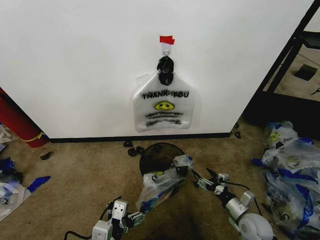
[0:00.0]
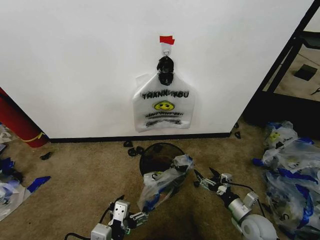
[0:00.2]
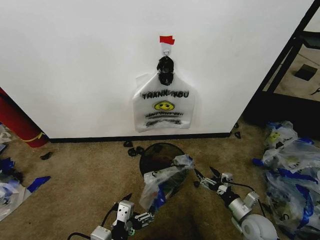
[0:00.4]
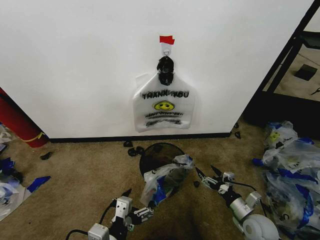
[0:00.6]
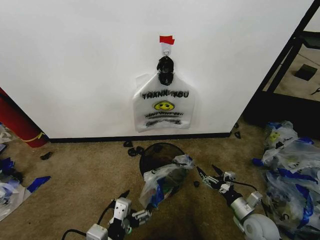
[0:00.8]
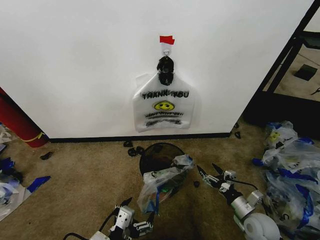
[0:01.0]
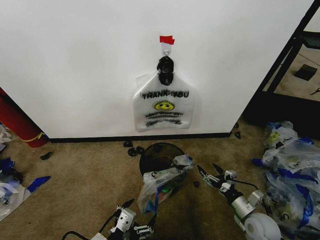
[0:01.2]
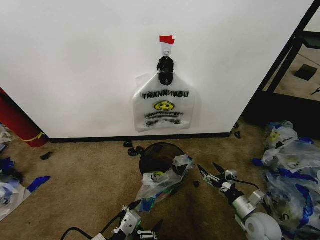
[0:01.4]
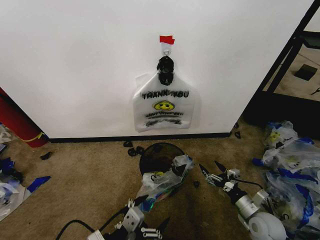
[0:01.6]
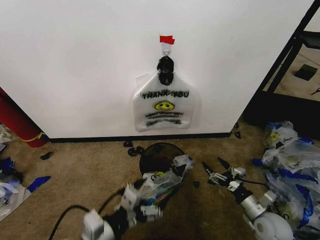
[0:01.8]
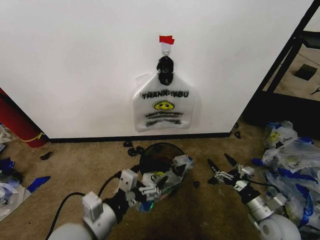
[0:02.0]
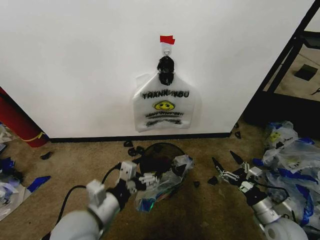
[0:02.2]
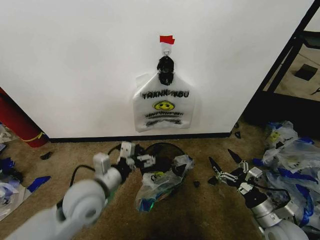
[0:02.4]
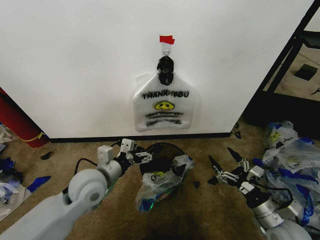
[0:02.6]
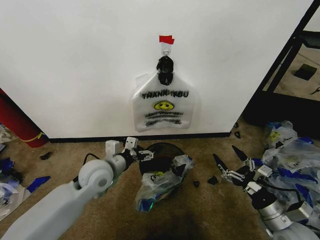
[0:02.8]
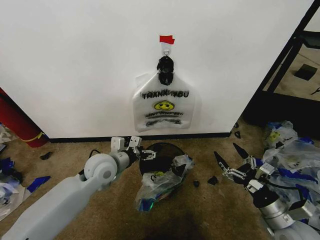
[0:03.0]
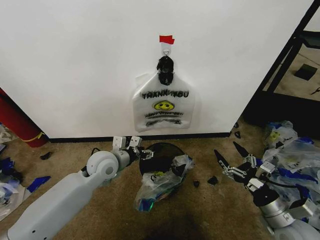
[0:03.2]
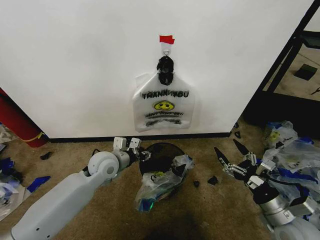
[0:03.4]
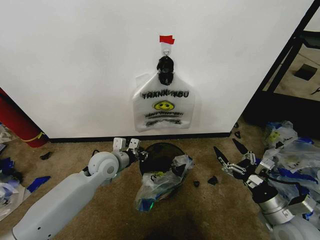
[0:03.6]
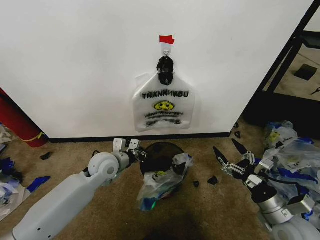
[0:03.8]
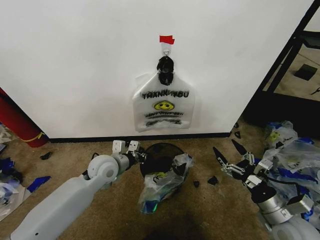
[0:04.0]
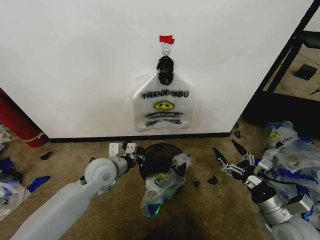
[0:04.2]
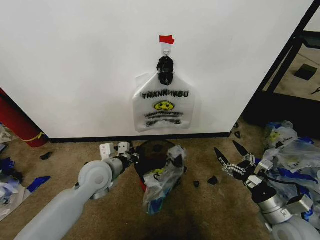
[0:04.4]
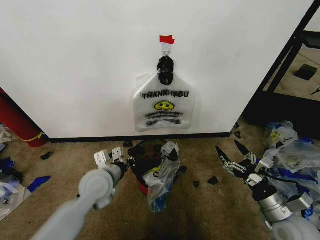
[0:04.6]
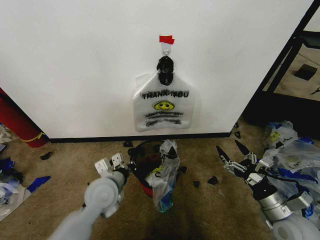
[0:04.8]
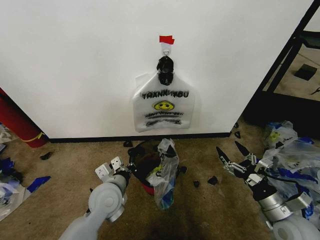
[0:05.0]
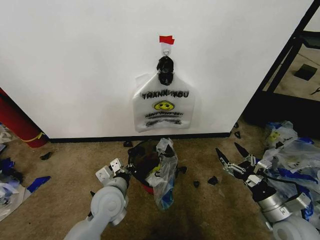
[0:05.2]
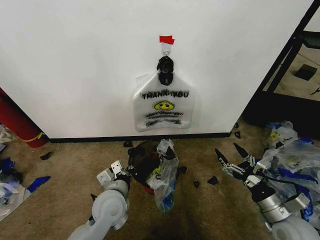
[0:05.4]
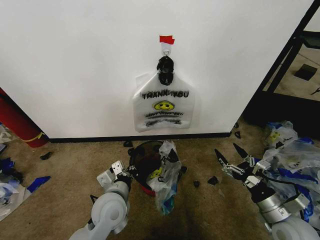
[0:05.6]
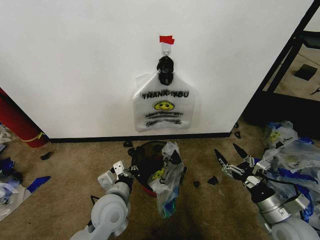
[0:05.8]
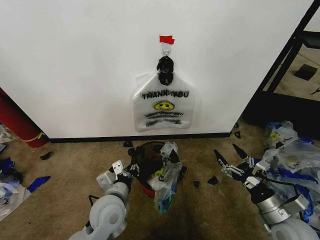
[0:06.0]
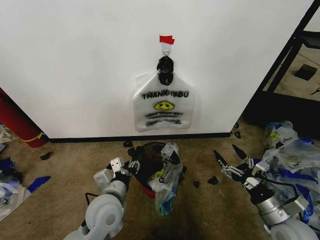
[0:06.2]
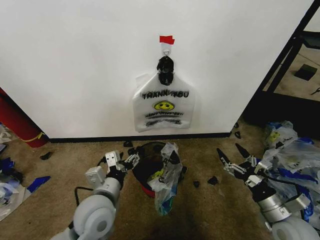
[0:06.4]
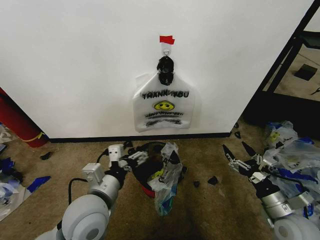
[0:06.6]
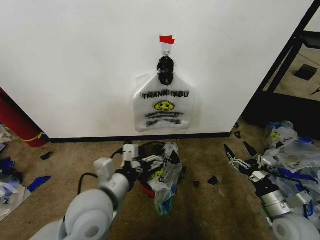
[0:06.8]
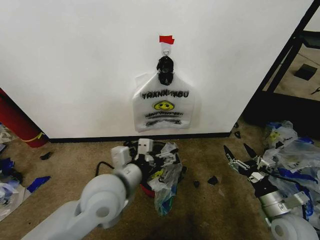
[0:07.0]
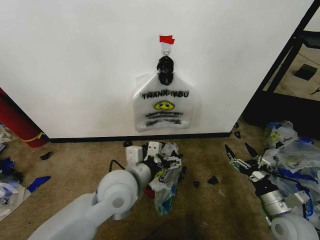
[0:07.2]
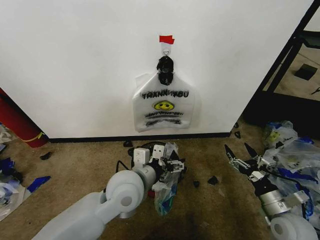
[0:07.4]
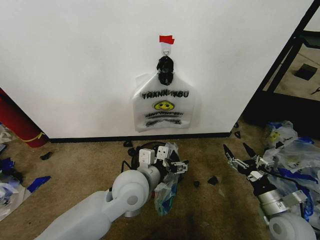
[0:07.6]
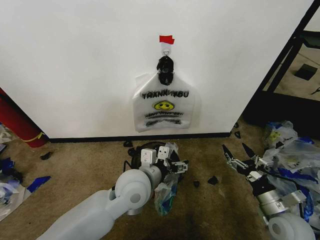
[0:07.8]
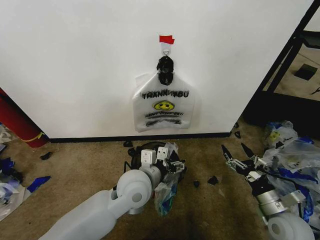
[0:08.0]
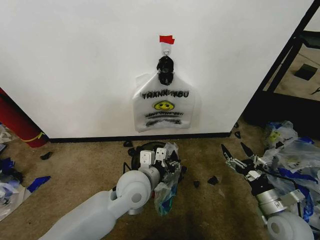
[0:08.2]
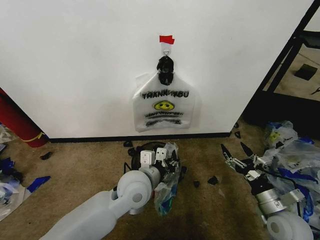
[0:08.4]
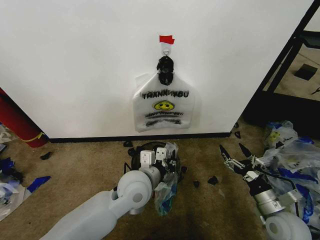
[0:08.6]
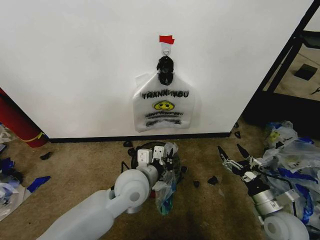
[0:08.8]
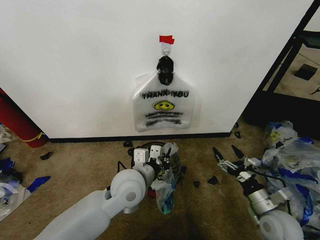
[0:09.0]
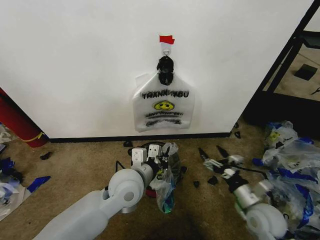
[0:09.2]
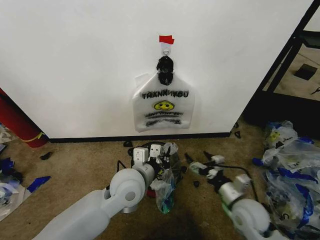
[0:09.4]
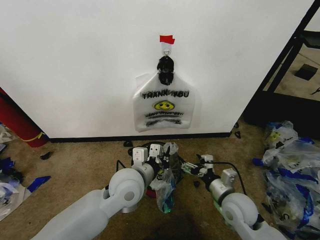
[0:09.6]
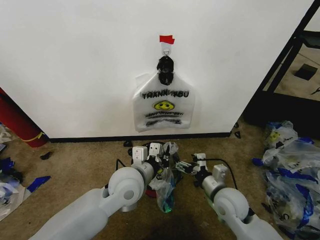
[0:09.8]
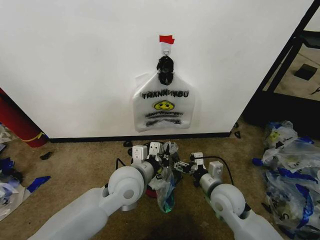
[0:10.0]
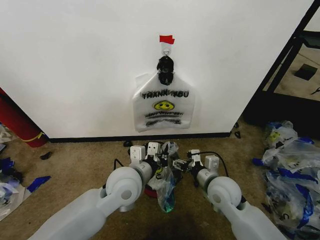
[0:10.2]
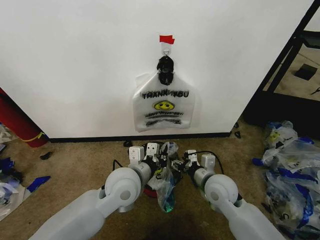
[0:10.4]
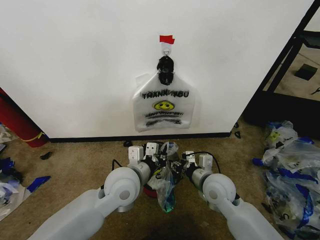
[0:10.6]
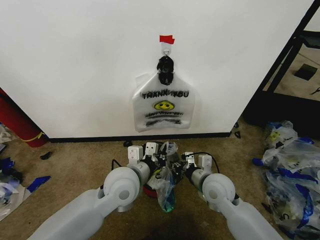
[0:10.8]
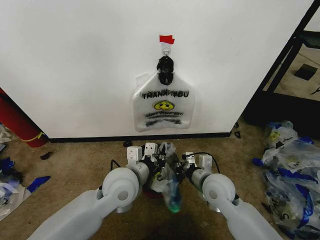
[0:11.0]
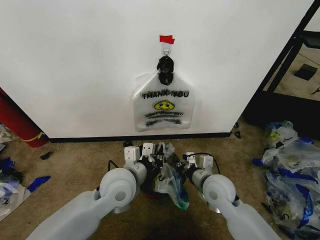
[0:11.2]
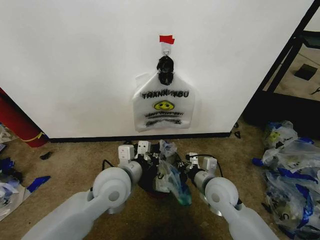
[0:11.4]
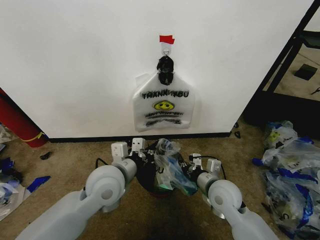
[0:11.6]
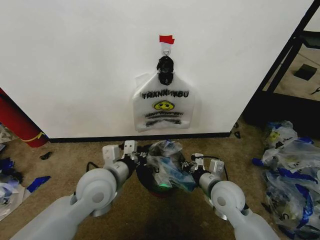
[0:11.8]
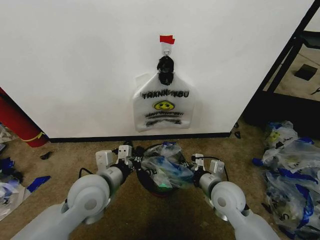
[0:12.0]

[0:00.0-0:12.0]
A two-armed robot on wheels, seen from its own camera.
Task of the whole recording: Pick up the garbage bag from the wall and place it over the trash bin.
0:01.6 to 0:03.0: The left gripper is displaced forward by approximately 25 cm; the right gripper is displaced upward by some 10 cm.
0:03.0 to 0:04.4: The left gripper closes its fingers.
0:04.4 to 0:06.0: The left gripper heads backward, covering approximately 10 cm.
0:06.0 to 0:07.6: The left gripper shifts about 10 cm upward and to the right, and opens its fingers.
0:07.6 to 0:09.0: The left gripper closes.
0:09.0 to 0:10.4: The right gripper heads to the left and forward, covering roughly 20 cm.
0:10.4 to 0:12.0: The left gripper goes roughly 10 cm to the left, while the right gripper closes its fingers.

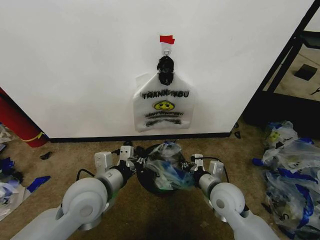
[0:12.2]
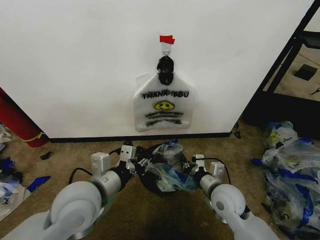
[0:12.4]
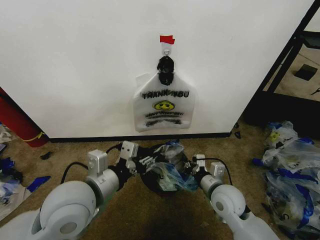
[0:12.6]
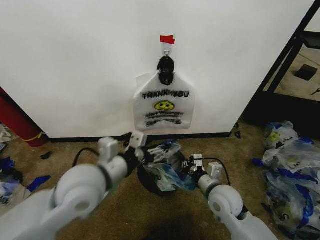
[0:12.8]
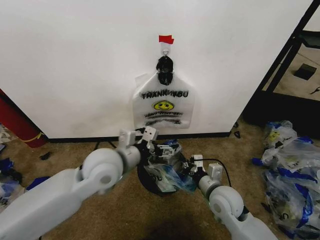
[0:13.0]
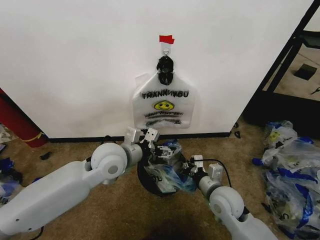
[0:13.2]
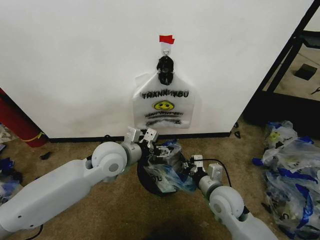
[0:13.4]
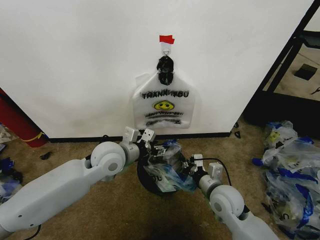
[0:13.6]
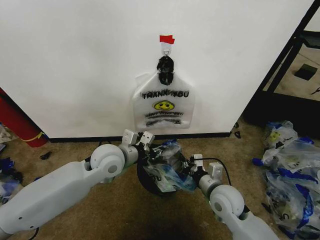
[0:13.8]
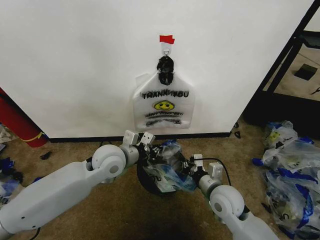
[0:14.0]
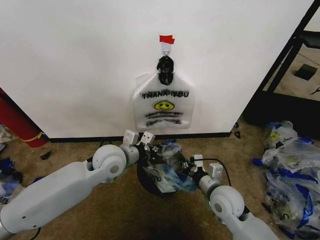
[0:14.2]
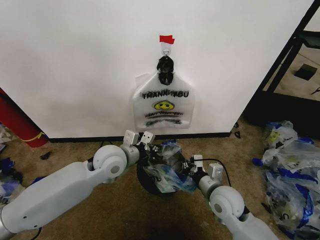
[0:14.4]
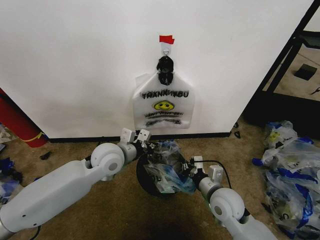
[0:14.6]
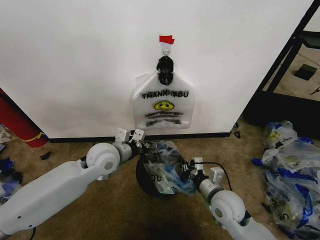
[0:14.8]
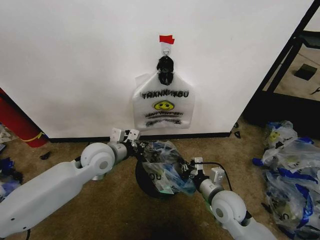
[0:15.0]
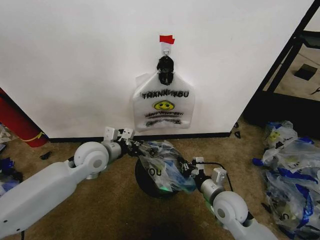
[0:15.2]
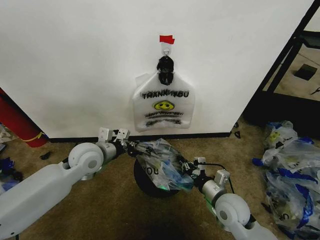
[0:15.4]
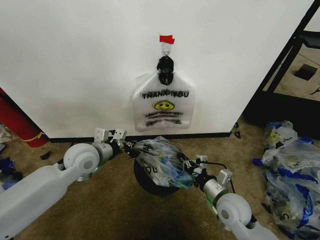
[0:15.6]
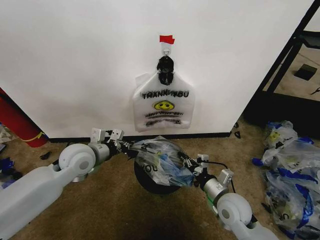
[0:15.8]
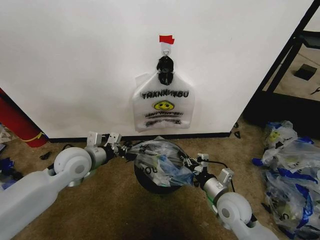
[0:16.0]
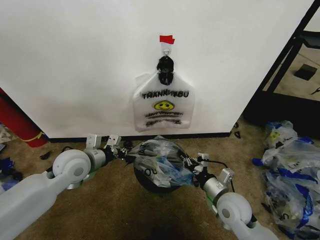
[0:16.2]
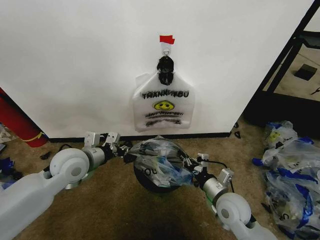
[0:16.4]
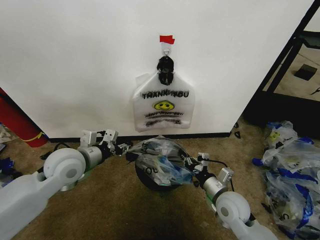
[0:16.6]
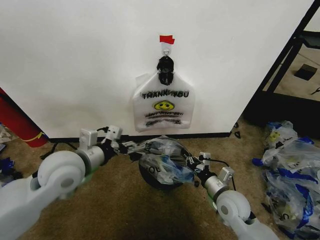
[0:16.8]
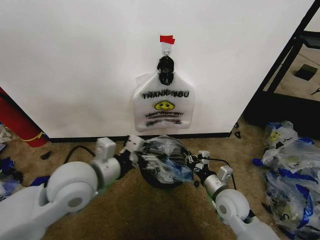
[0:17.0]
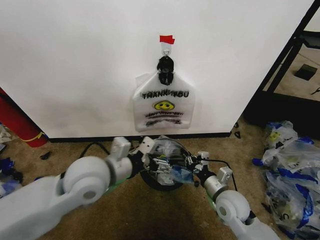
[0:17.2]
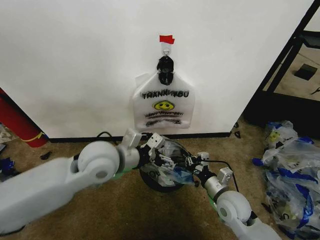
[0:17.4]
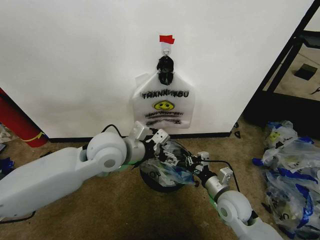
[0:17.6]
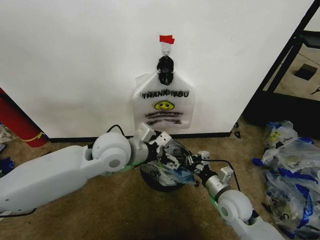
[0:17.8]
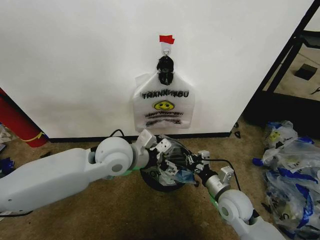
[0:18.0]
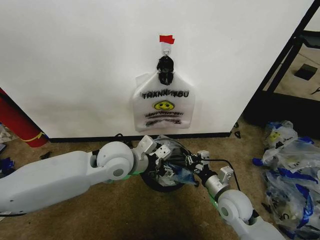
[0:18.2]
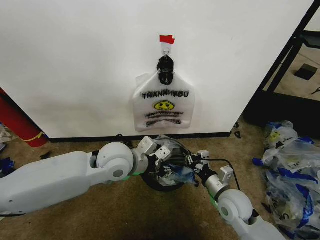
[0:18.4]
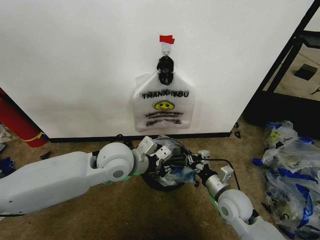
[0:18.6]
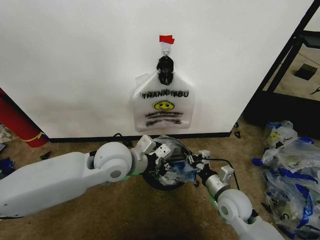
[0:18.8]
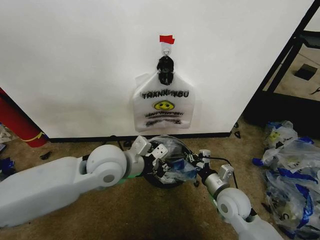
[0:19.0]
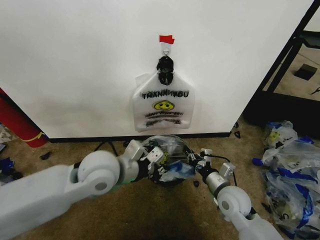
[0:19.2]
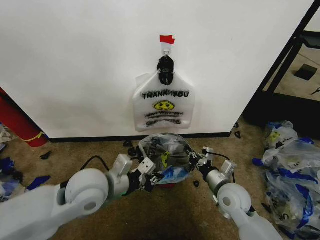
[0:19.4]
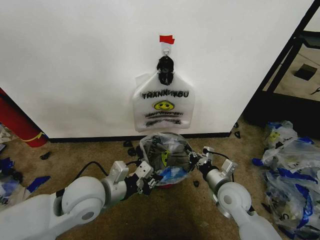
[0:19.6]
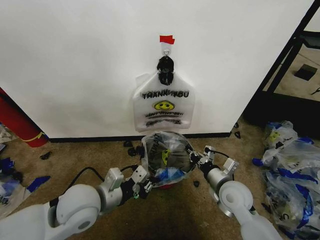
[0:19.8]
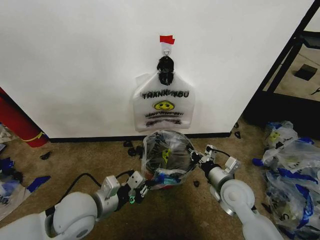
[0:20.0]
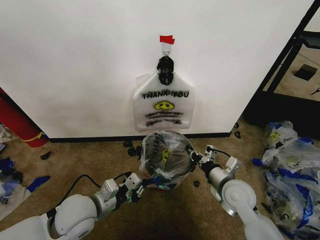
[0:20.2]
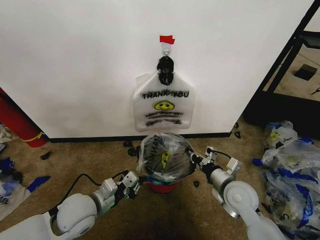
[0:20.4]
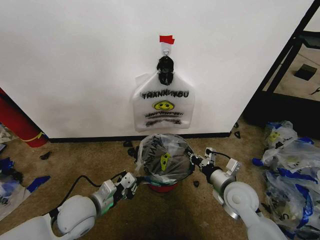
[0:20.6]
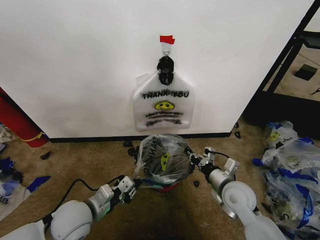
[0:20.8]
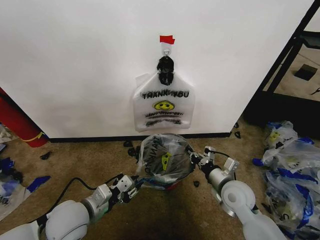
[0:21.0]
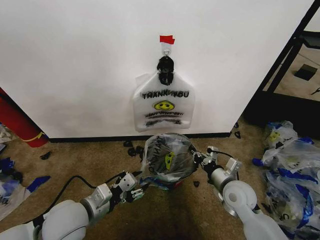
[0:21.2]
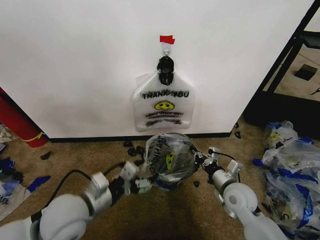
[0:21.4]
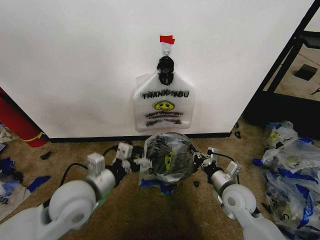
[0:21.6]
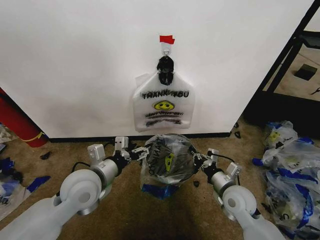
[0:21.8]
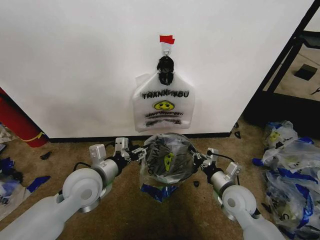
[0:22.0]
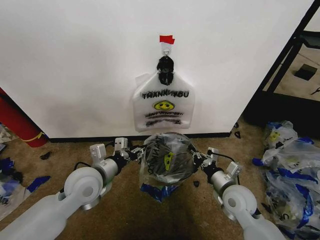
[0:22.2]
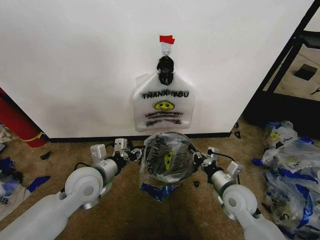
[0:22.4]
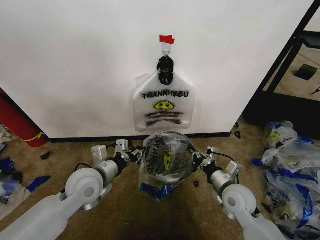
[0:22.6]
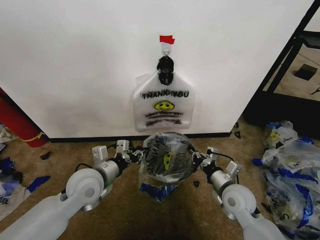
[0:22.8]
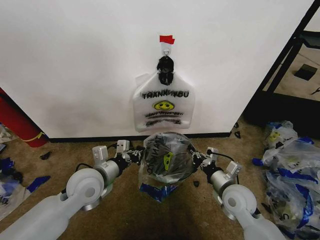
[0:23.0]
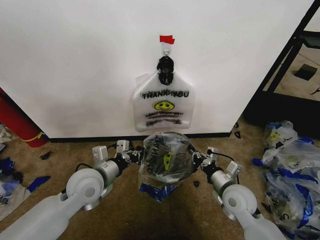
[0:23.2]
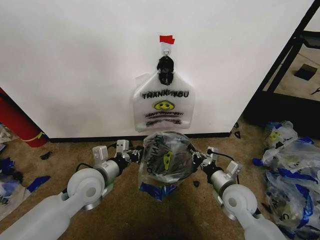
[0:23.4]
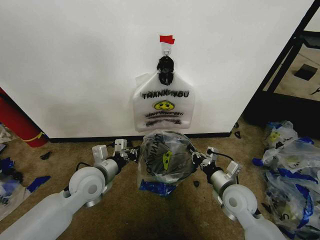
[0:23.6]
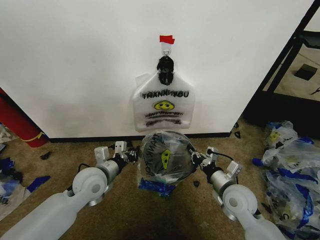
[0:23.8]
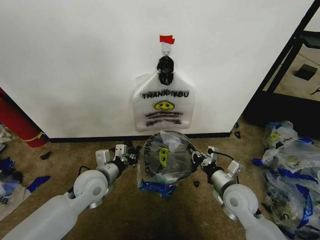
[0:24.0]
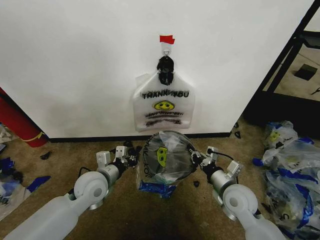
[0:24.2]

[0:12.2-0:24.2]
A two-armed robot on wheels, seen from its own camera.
Task of the whole recording: Pick up the garbage bag from the wall and place it over the trash bin.
0:12.2 to 0:13.8: The left gripper moves forward, roughly 10 cm, and opens, then closes again.
0:13.8 to 0:15.2: The left gripper is displaced to the left by about 5 cm, and closes.
0:15.2 to 0:16.6: The left gripper shifts by roughly 5 cm, and opens its fingers.
0:16.6 to 0:18.2: The left gripper travels to the right by roughly 15 cm, and opens and closes again.
0:18.2 to 0:19.8: The left gripper goes roughly 15 cm backward, to the left and downward, and closes up.
0:19.8 to 0:21.2: The left gripper opens its fingers.
0:21.2 to 0:22.6: The left gripper shifts roughly 10 cm forward, and opens and closes again.
0:22.6 to 0:24.2: The left gripper heads downward, covering approximately 5 cm.
